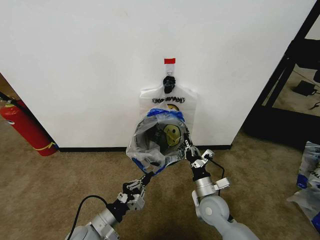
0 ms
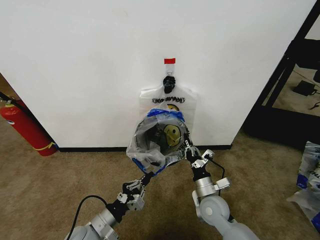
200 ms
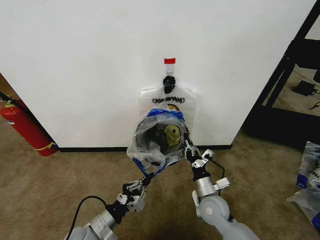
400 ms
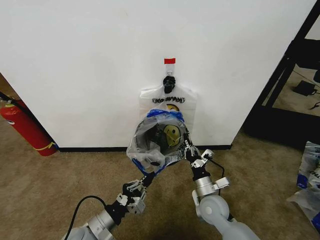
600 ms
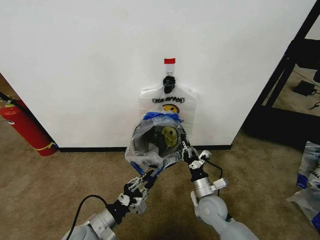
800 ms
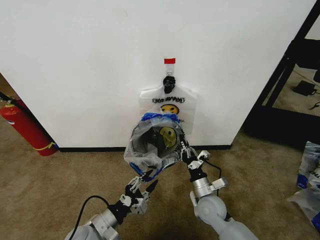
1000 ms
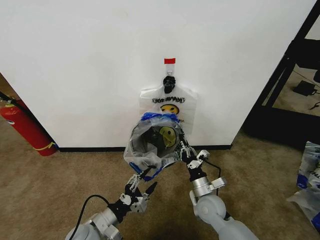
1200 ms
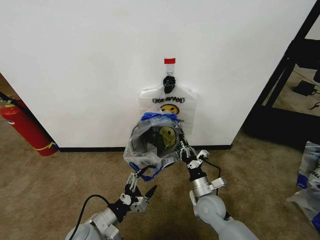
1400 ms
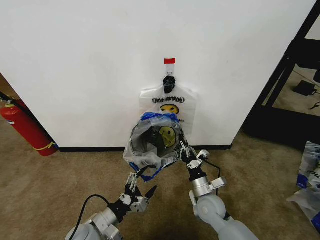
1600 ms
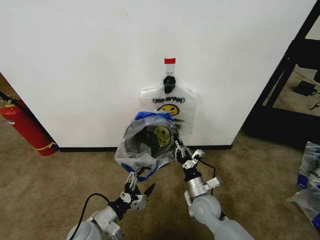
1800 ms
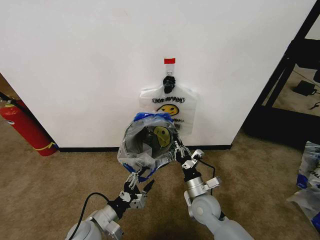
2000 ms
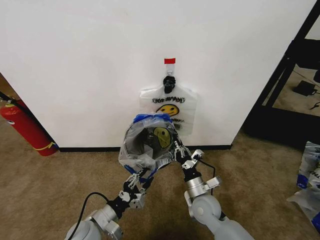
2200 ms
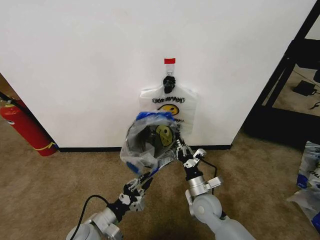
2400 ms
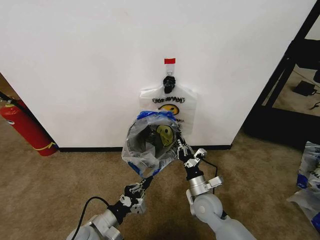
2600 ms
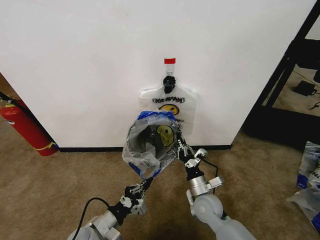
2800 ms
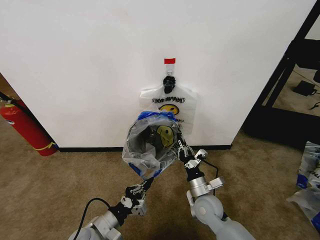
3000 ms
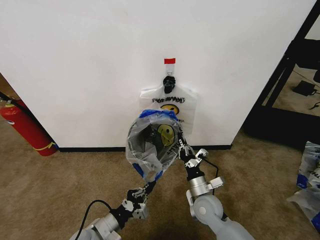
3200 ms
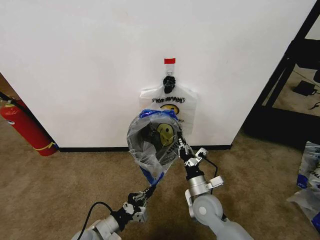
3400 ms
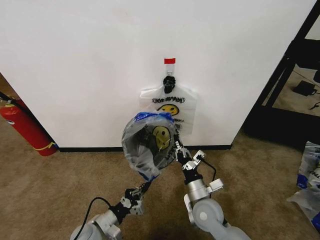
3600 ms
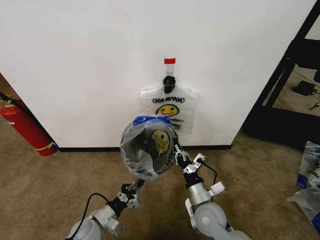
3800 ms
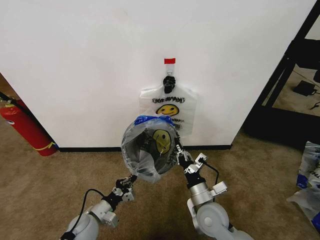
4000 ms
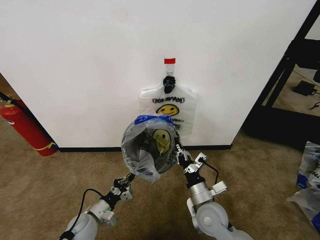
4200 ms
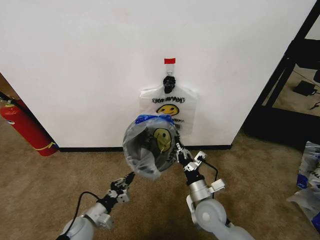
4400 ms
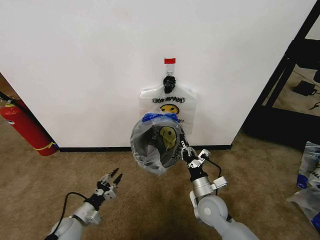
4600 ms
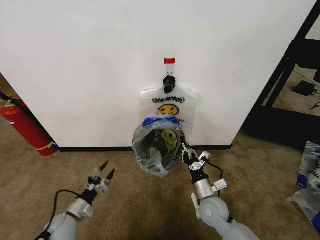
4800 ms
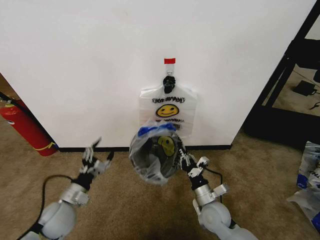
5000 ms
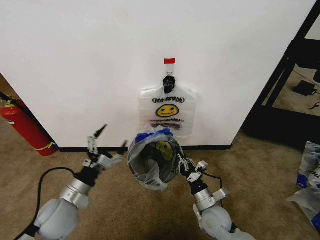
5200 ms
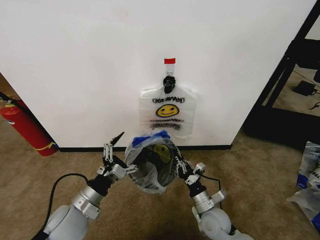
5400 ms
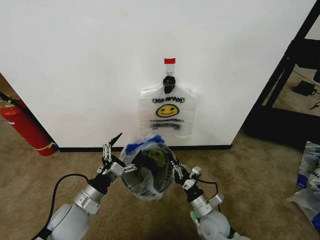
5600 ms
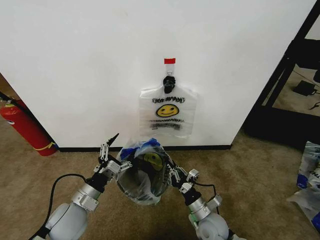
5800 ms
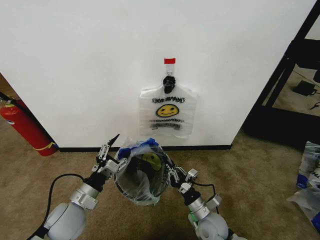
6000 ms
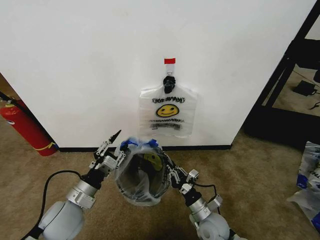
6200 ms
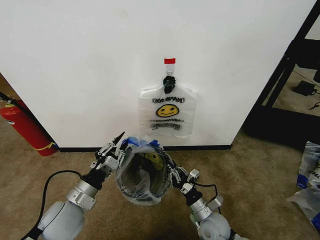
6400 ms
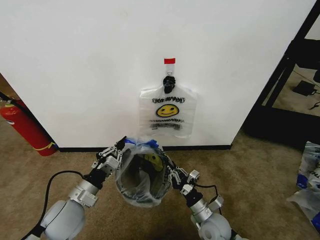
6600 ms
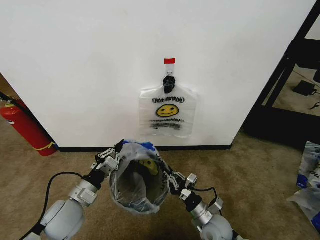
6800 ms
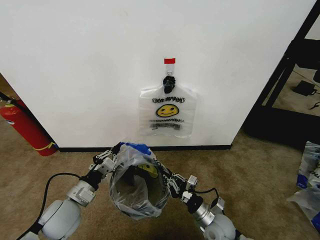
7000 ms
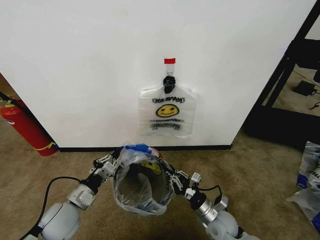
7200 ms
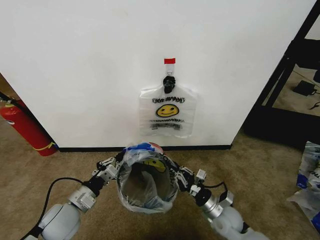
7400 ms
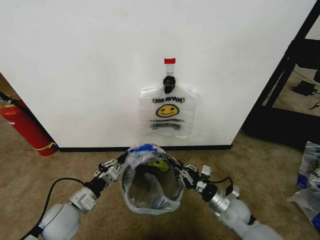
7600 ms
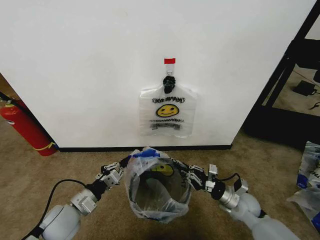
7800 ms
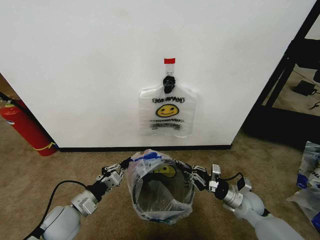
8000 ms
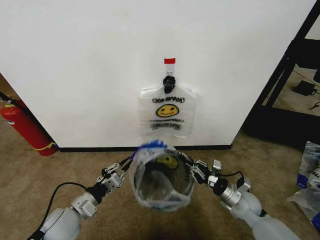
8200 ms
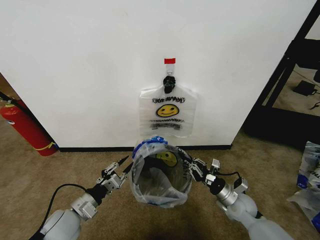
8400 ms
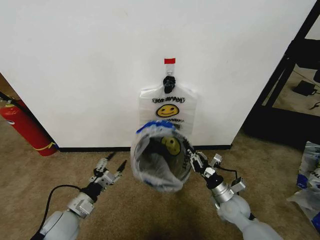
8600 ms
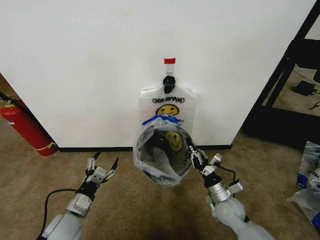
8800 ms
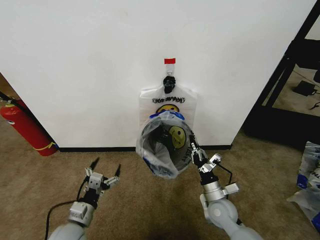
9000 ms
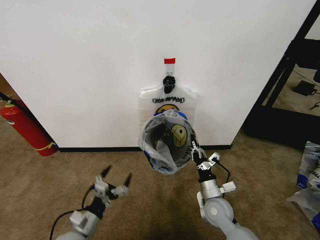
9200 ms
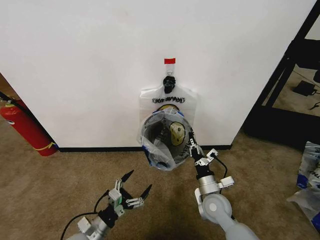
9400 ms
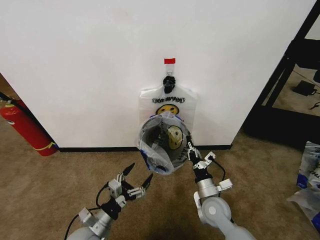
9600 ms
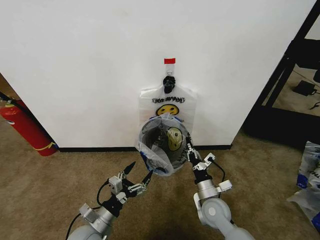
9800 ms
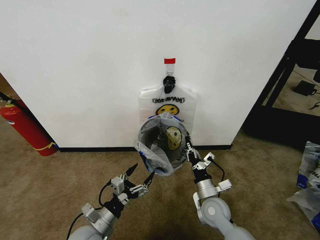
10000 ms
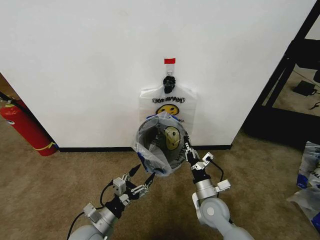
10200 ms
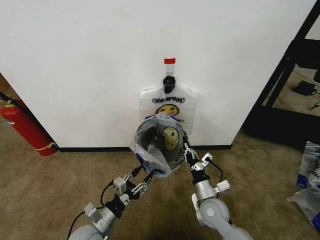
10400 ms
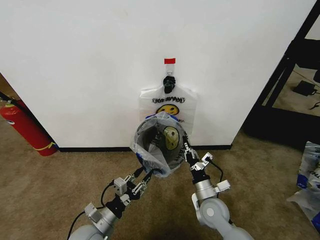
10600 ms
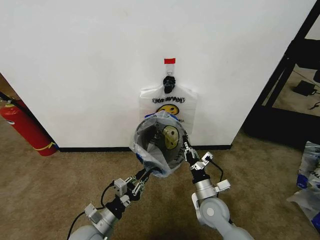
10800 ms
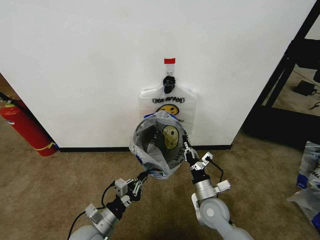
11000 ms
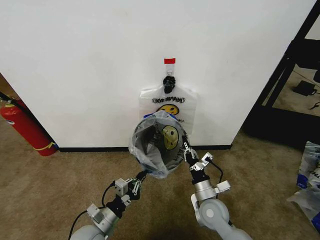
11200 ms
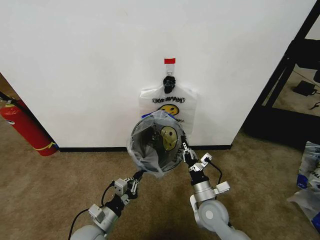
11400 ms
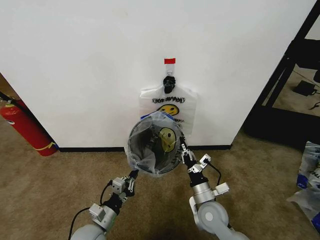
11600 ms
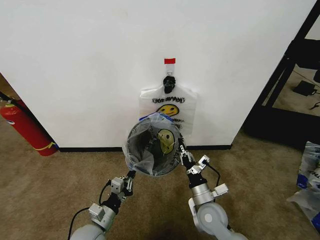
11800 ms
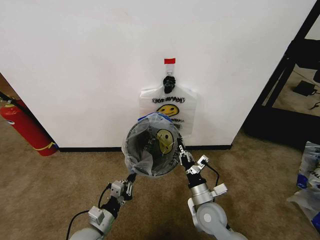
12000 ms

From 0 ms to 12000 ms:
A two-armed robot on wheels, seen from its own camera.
Task of the whole recording: Pick up the garbage bag from the wall and place it over the trash bin.
From 0 ms to 1600 ms: The left gripper opens up.
From 1600 ms to 3000 ms: The left gripper closes up.
From 3000 ms to 4400 ms: The left gripper is displaced downward and to the left by about 10 cm.
From 4400 ms to 6000 ms: The left gripper heads upward, covering approximately 10 cm, and opens. The right gripper heads downward, covering some 5 cm.
From 6000 ms to 7600 ms: The right gripper heads to the right, covering roughly 10 cm. Meanwhile the left gripper closes its fingers.
From 7600 ms to 9000 ms: The left gripper shifts about 5 cm downward, and opens its fingers. Meanwhile the right gripper shifts about 5 cm to the left.
From 9000 ms to 10400 ms: The left gripper goes roughly 5 cm to the right.
From 10400 ms to 12000 ms: The left gripper closes its fingers.

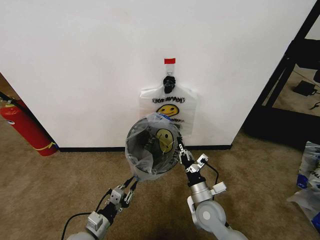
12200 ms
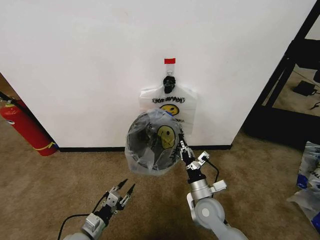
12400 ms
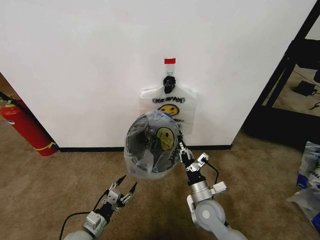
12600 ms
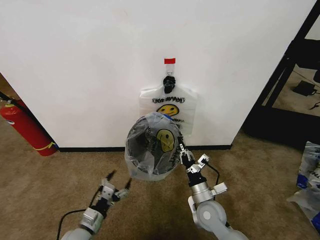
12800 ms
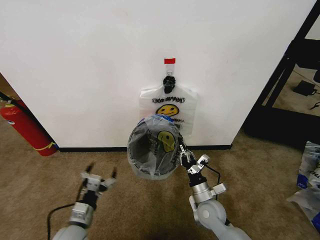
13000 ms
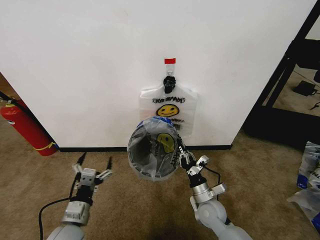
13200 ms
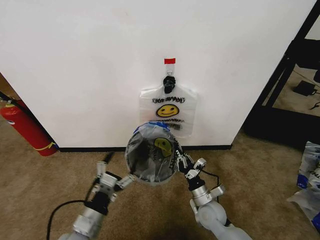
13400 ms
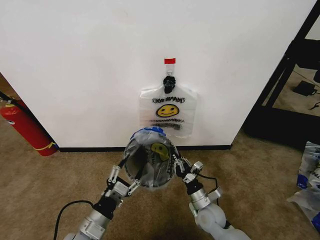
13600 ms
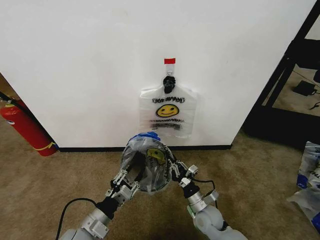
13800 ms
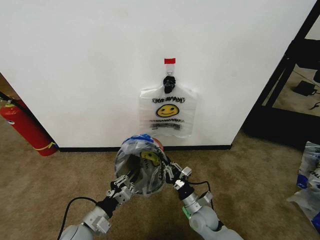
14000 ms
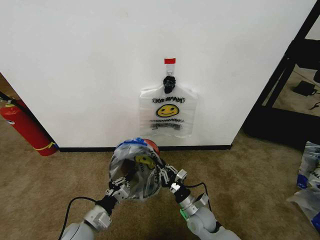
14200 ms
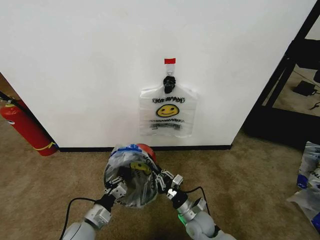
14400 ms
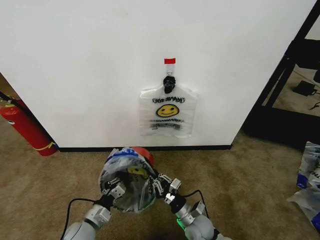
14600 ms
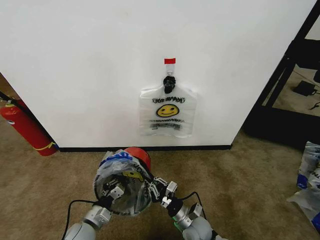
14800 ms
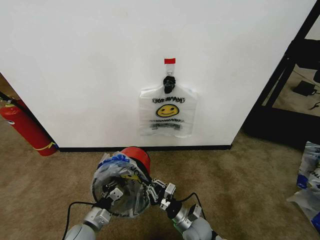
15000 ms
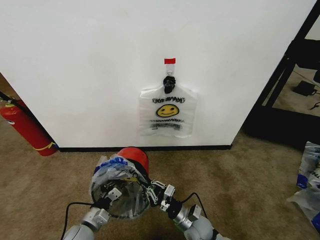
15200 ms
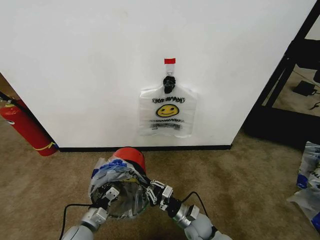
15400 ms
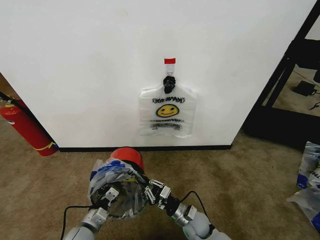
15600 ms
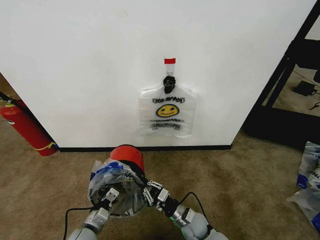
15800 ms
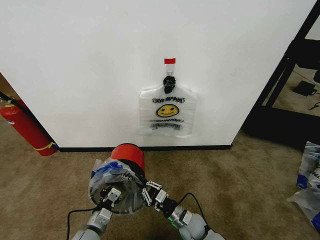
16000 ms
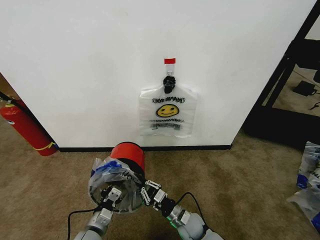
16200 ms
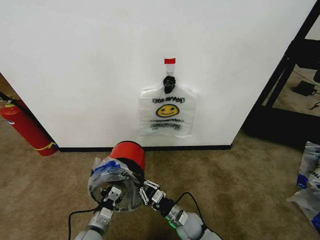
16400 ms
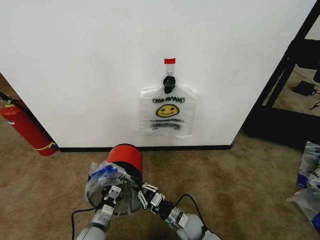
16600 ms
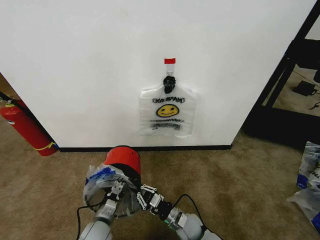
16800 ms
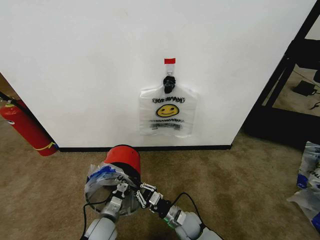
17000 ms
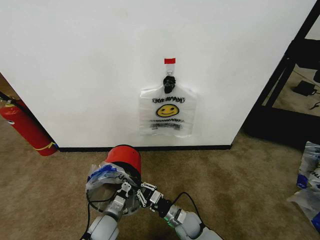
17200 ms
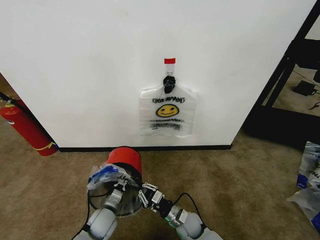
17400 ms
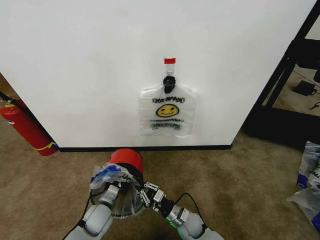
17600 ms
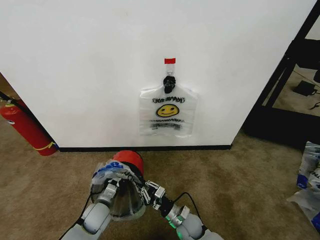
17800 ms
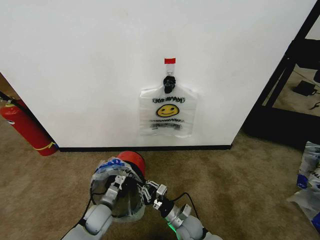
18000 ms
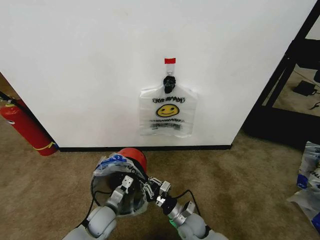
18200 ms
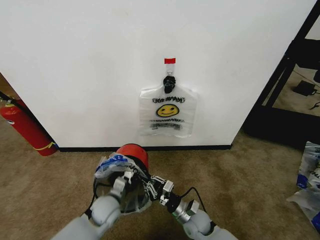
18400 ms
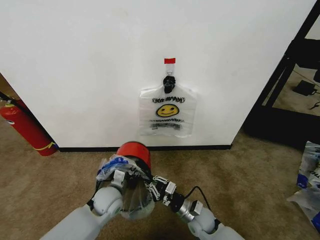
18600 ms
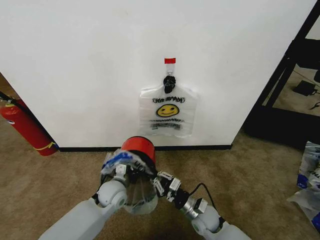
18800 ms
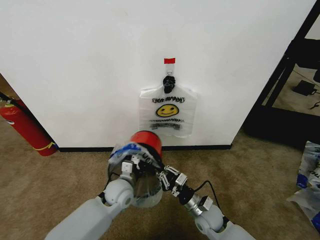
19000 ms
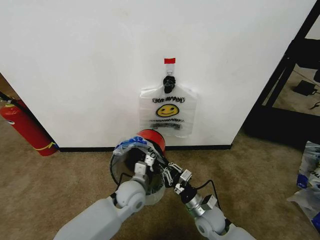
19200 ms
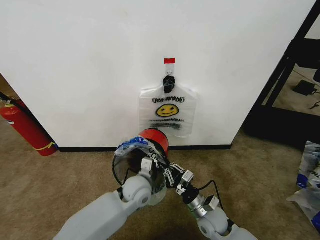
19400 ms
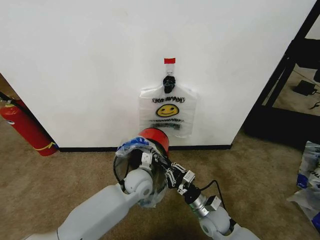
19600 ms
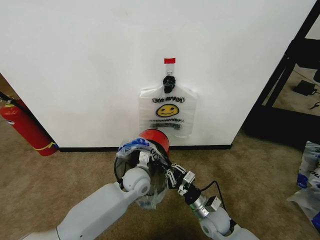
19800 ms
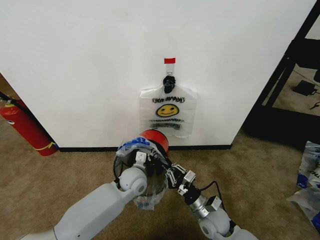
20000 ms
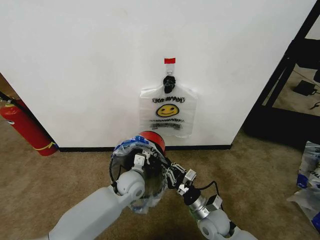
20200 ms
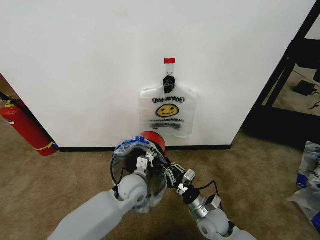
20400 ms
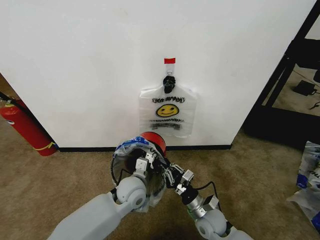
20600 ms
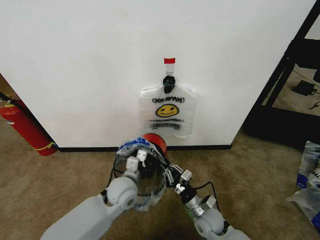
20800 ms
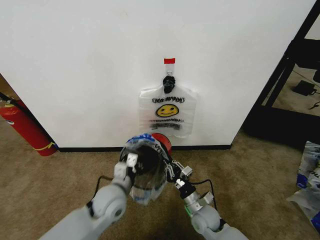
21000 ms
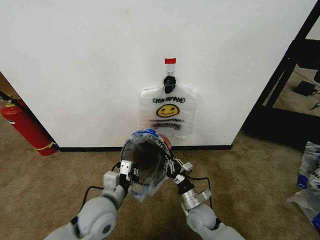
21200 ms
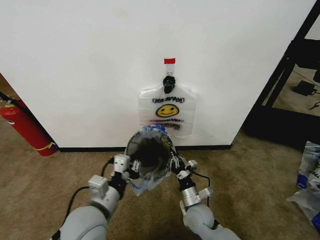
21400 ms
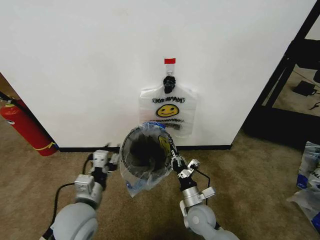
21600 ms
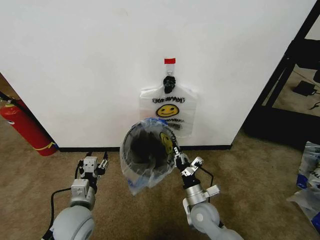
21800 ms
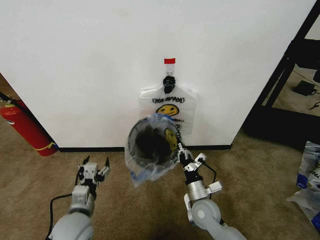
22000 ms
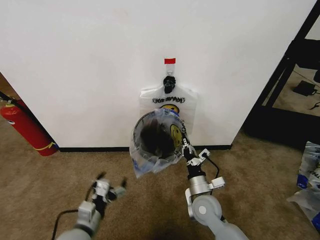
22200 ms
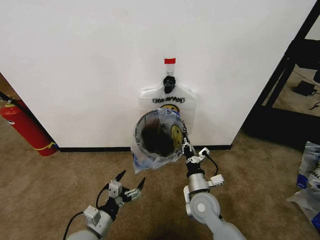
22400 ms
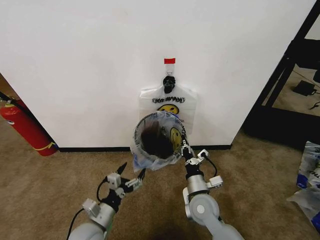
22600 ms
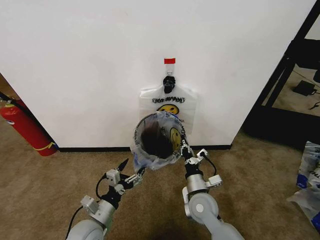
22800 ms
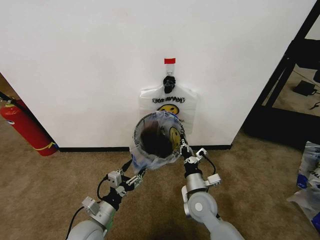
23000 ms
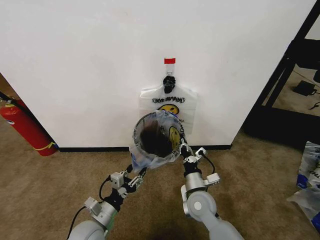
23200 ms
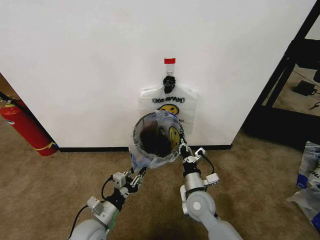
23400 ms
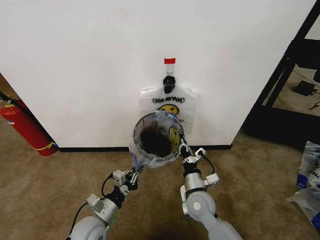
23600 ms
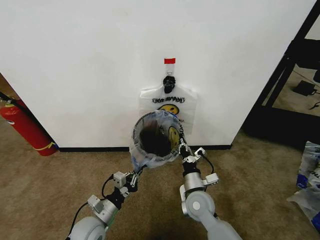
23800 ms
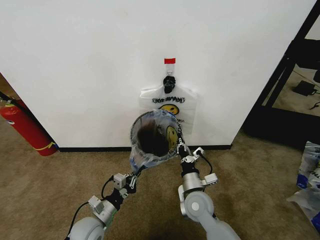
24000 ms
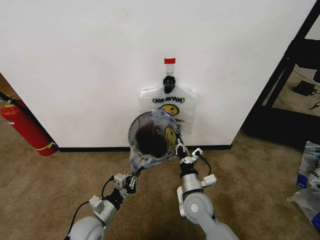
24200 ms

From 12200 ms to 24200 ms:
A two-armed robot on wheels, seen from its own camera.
Task of the whole recording: Pick up the garbage bag from the wall and place it over the trash bin.
From 12200 ms to 13800 ms: The left gripper is displaced upward by some 5 cm, and opens, then closes once more; the right gripper heads downward, covering approximately 5 cm.
From 13800 ms to 15200 ms: The right gripper shifts by approximately 5 cm. The left gripper is displaced downward by approximately 5 cm, and closes its fingers.
From 16600 ms to 18200 ms: The left gripper moves forward, about 5 cm.
From 18200 ms to 19800 ms: The right gripper moves to the right and upward, about 10 cm. The left gripper moves to the right, upward and forward, about 20 cm.
From 19800 ms to 21200 ms: The left gripper travels backward, to the left and upward by some 15 cm.
From 21200 ms to 22600 ms: The right gripper travels upward by approximately 10 cm. The left gripper shifts approximately 10 cm downward, and opens its fingers.
From 22600 ms to 24200 ms: The left gripper closes.
